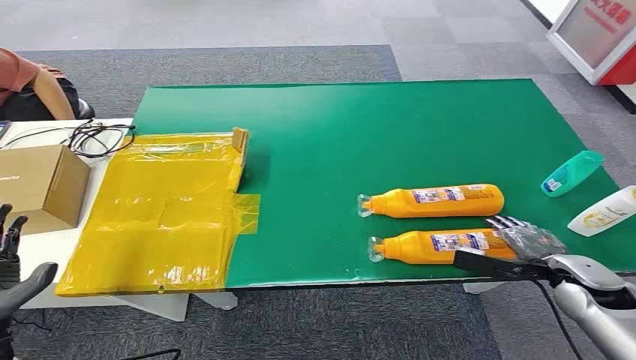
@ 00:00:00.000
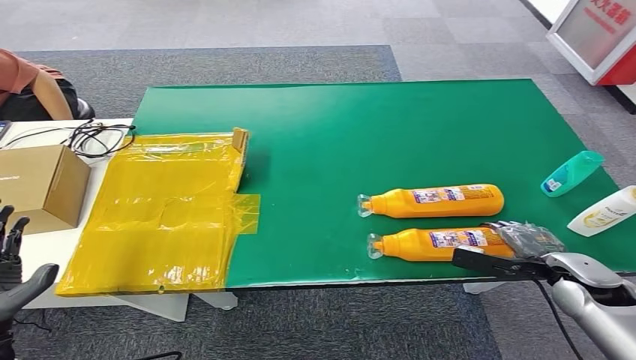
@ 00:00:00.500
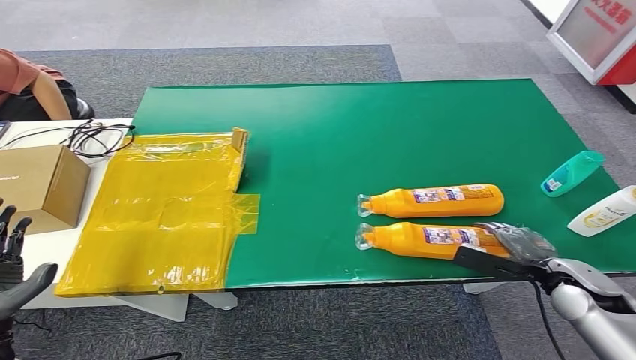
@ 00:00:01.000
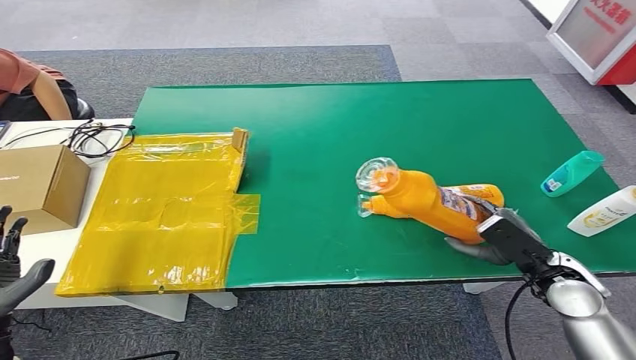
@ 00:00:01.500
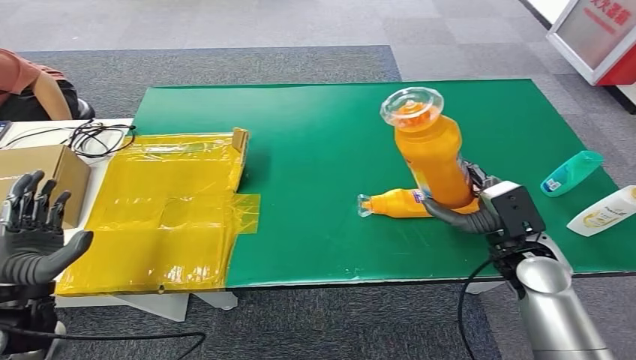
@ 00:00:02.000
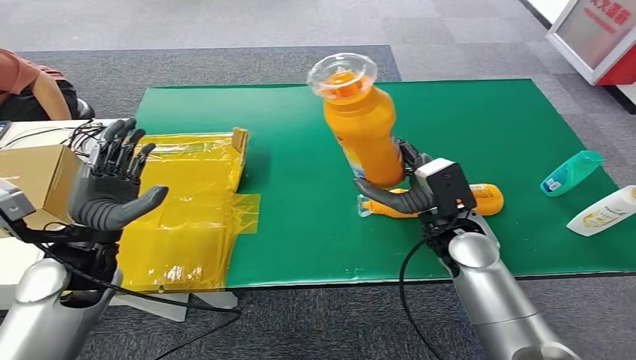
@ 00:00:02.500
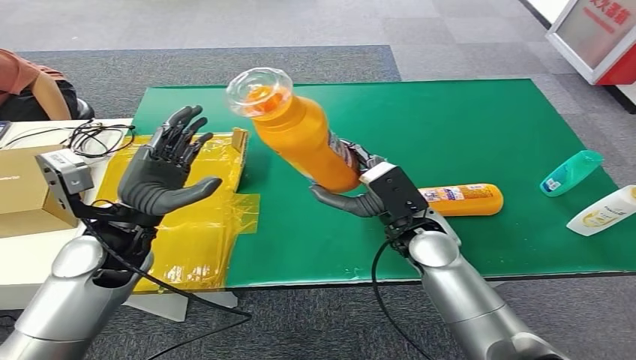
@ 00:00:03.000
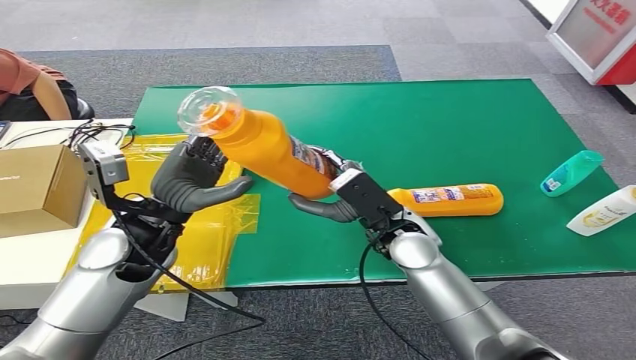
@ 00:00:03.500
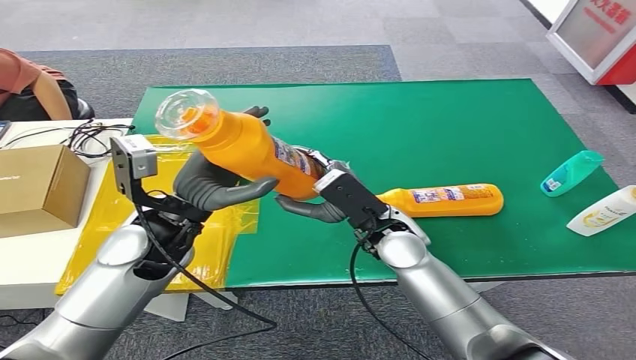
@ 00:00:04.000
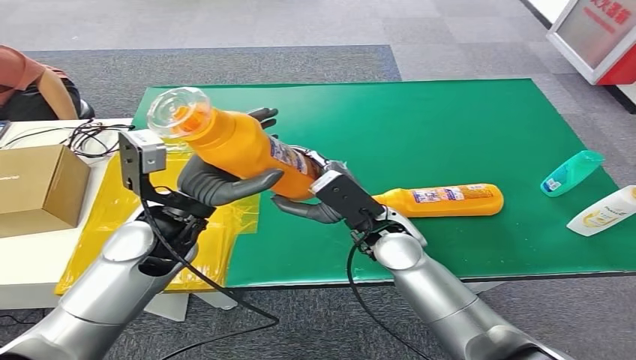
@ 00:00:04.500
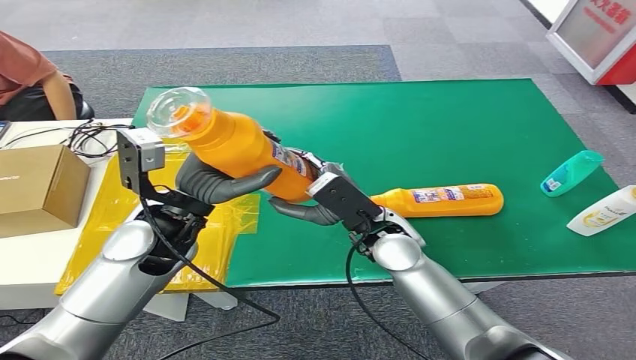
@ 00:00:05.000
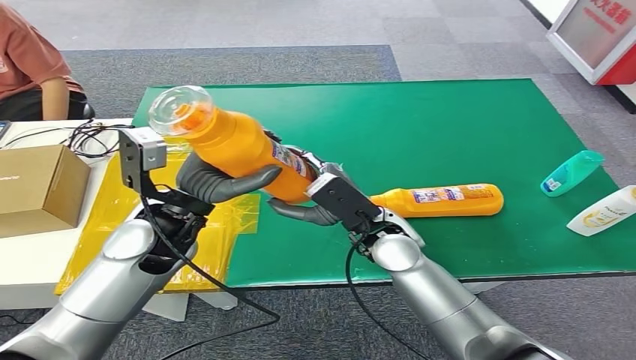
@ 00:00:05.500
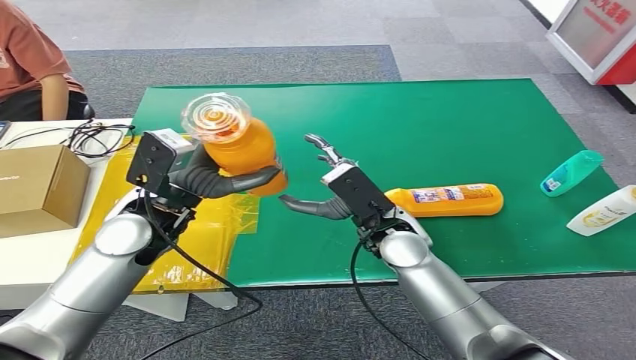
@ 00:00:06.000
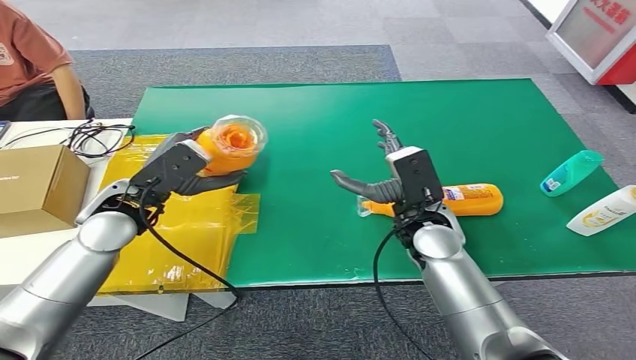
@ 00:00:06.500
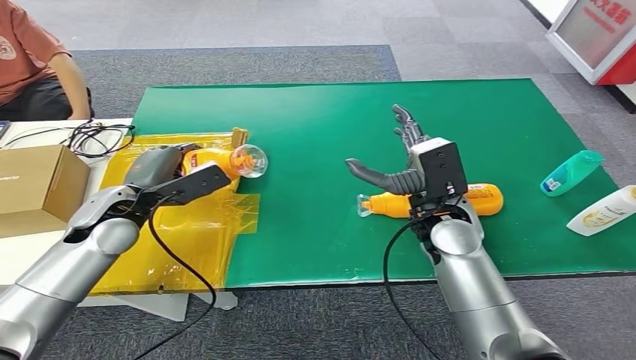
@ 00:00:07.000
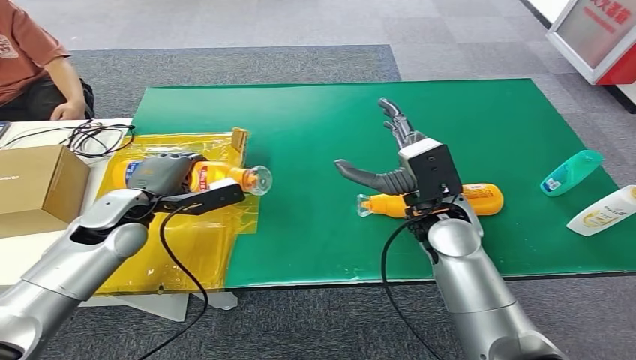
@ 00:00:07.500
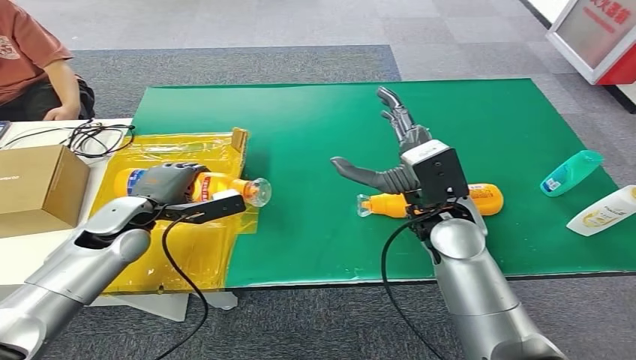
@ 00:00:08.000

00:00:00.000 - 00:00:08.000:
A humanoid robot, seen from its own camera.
Step, 00:00:00.000 - 00:00:01.500: Pick up the bottle from the table.
Step, 00:00:02.500 - 00:00:08.000: Turn the bottle to the front side.
